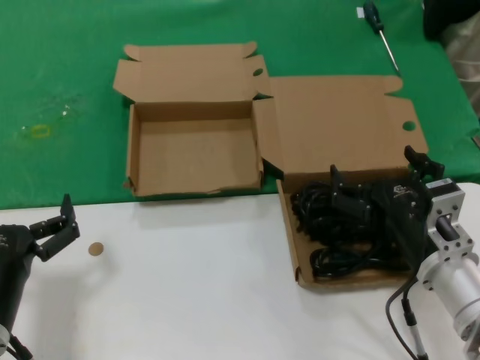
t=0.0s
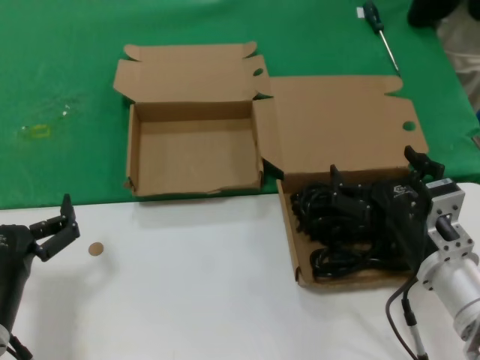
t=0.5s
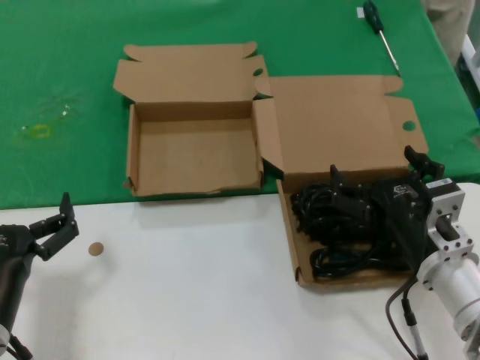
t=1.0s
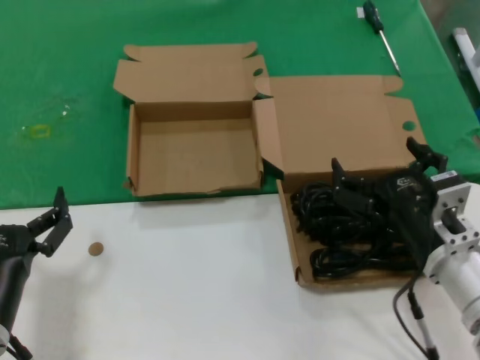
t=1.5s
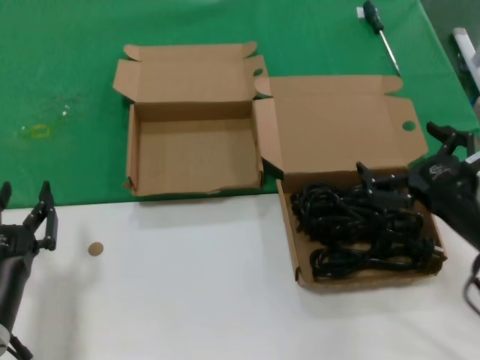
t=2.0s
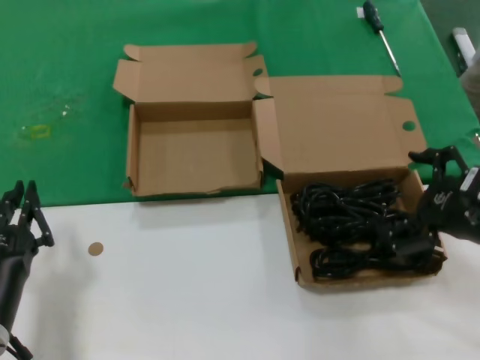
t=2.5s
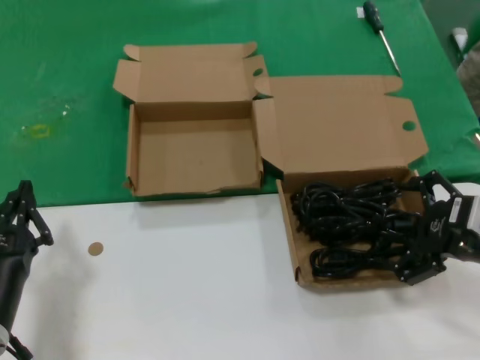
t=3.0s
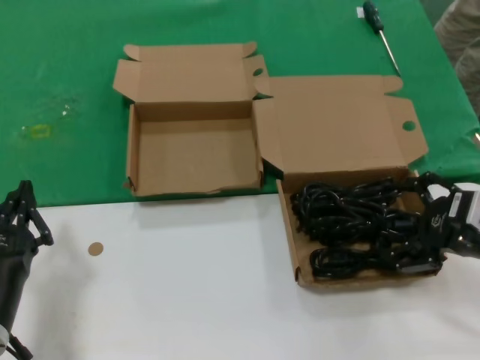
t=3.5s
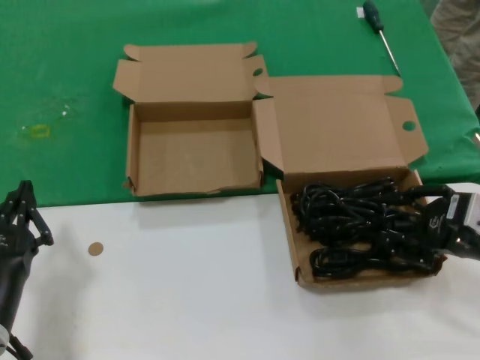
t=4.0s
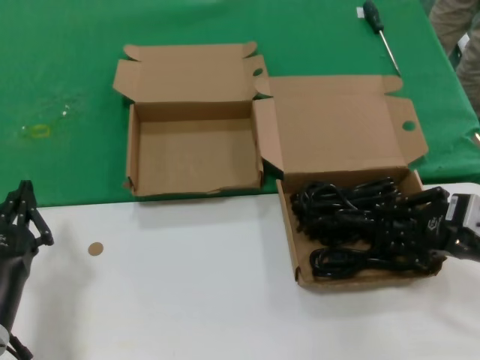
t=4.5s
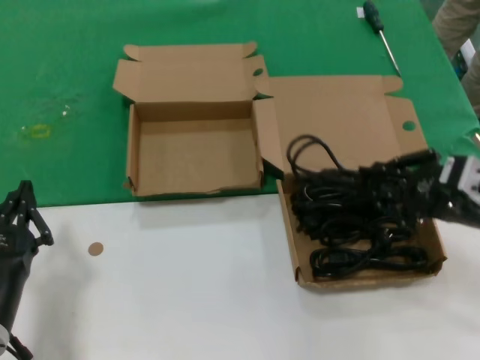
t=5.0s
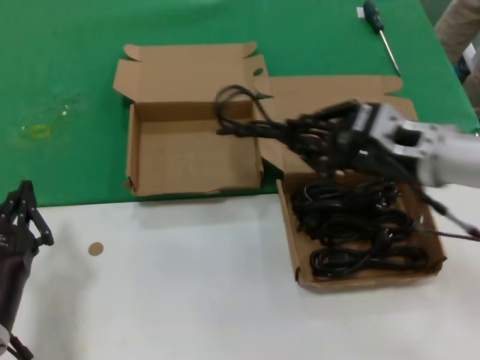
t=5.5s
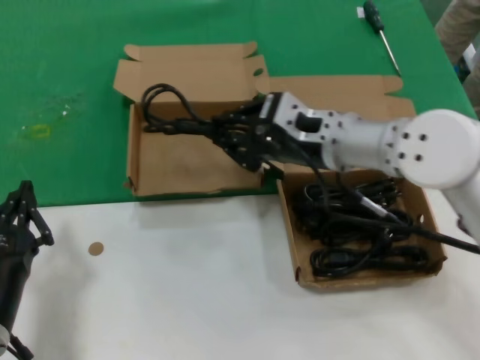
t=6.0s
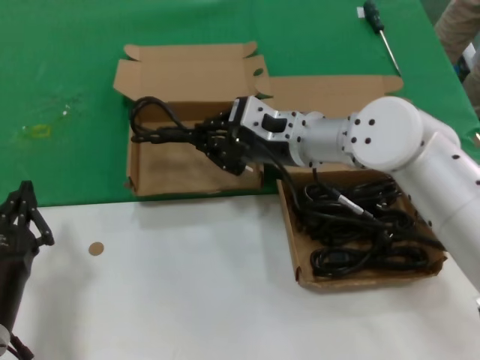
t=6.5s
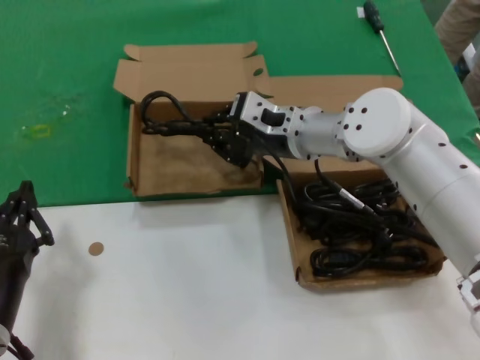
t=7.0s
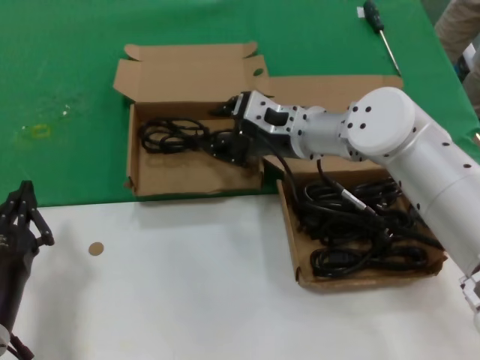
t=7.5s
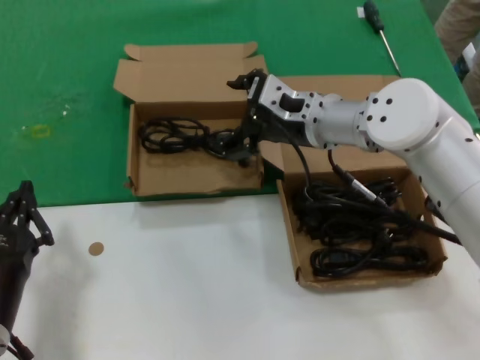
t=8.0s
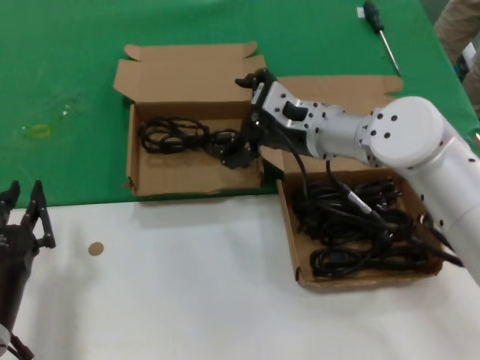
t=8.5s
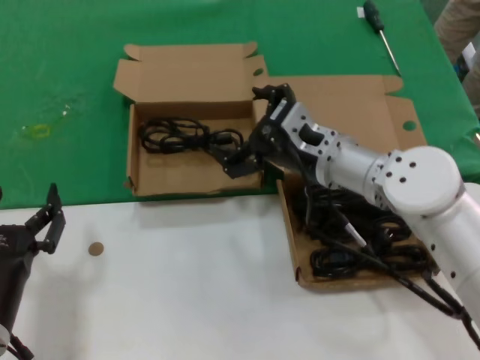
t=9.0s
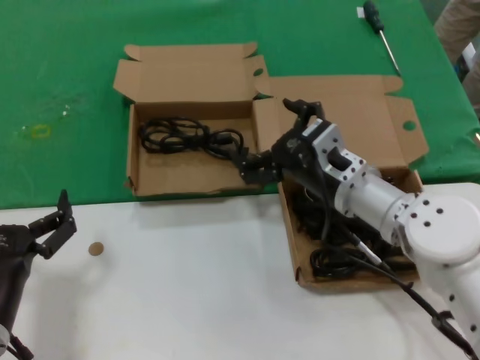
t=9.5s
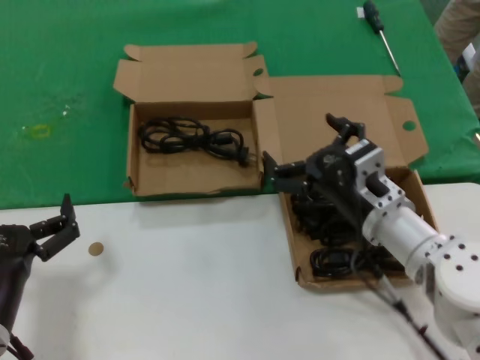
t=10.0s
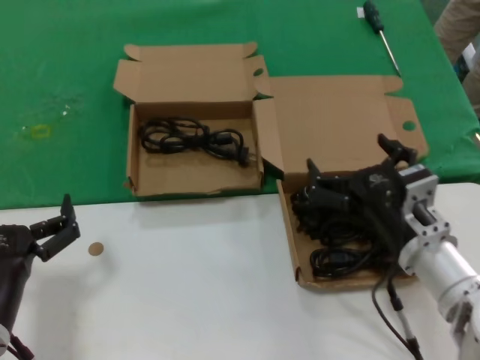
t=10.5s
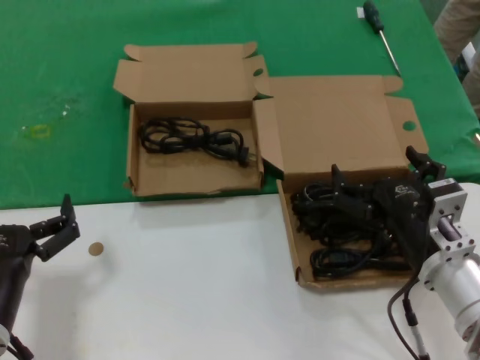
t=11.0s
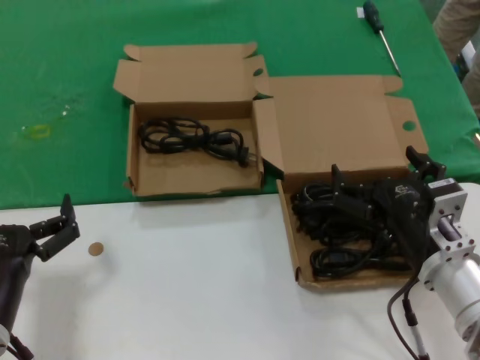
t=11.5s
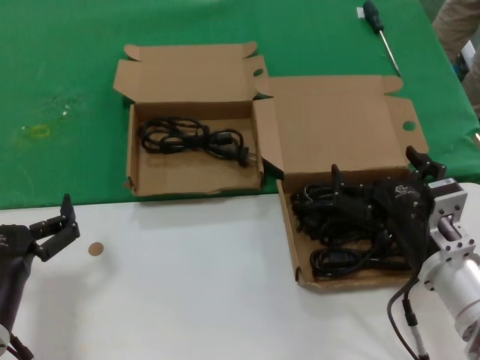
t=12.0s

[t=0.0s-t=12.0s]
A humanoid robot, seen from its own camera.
Task of the whole recording: take the parts from the box containing them and put them into an empty box.
Step, t=0.0s to t=4.0s: Grasp the data cable.
Step, t=4.5s to t=7.5s: Place the data cable in the another box.
t=0.0s to t=2.0s: The right hand travels to the right and upward by roughly 10 cm.
t=2.0s to t=4.0s: The right hand shifts roughly 5 cm to the right.
t=4.0s to t=6.0s: The right hand is displaced to the left and forward by about 25 cm.
t=6.0s to t=8.0s: The right hand heads forward, covering some 5 cm.
t=8.0s to t=10.0s: The right hand goes about 15 cm backward and downward.
t=10.0s to t=12.0s: The right hand is displaced backward by roughly 10 cm.

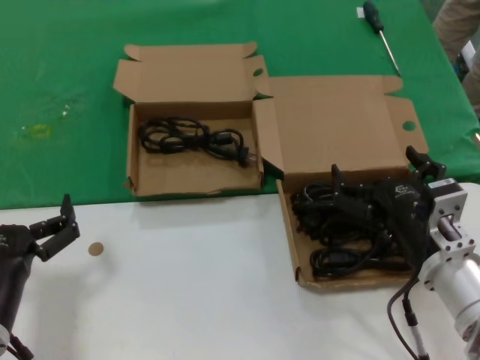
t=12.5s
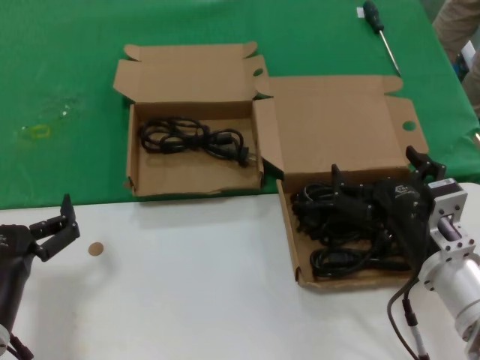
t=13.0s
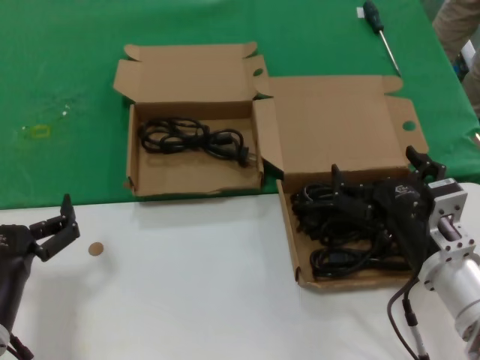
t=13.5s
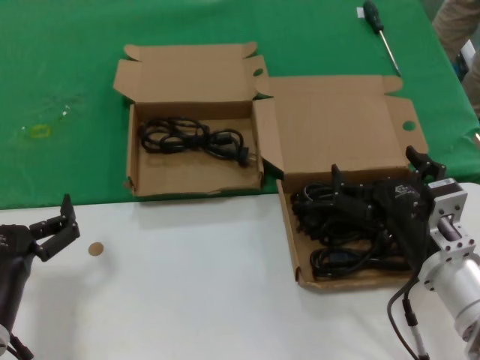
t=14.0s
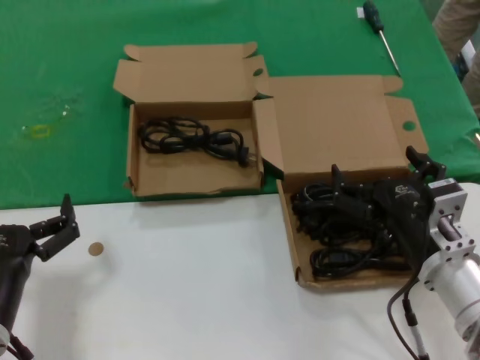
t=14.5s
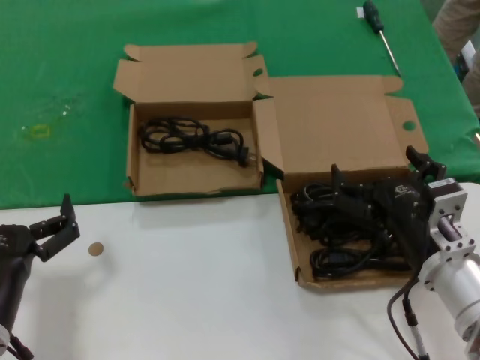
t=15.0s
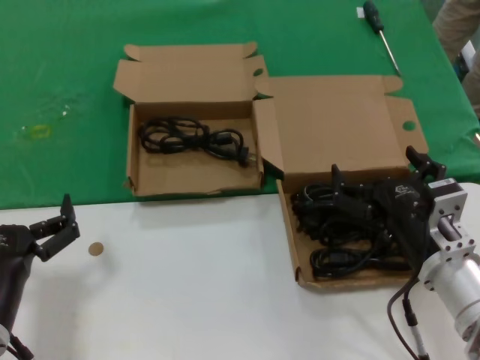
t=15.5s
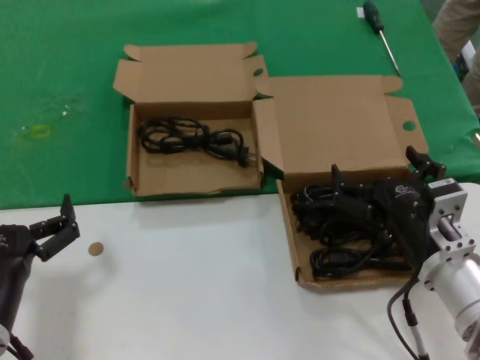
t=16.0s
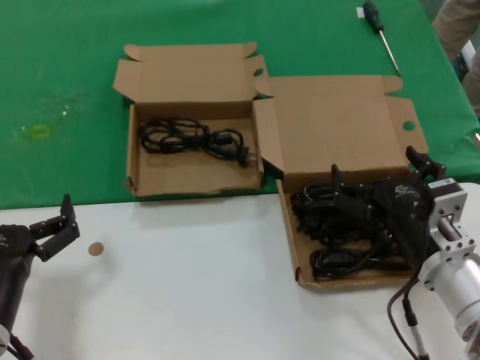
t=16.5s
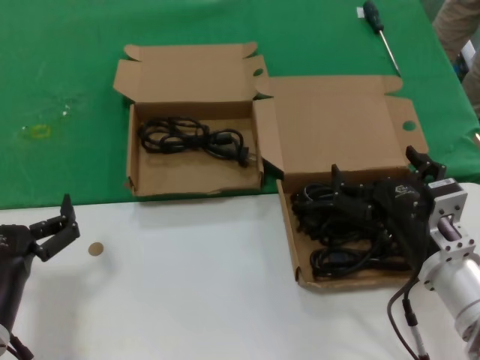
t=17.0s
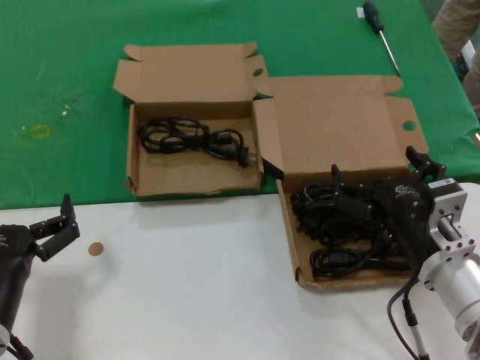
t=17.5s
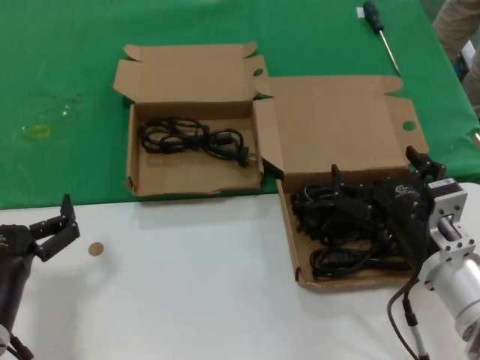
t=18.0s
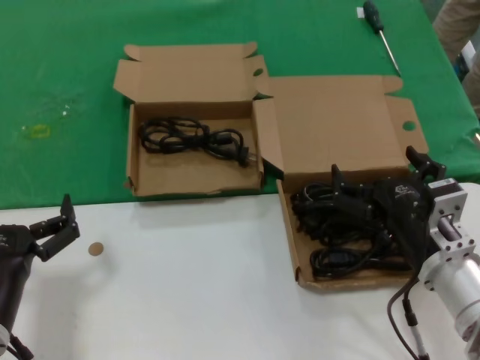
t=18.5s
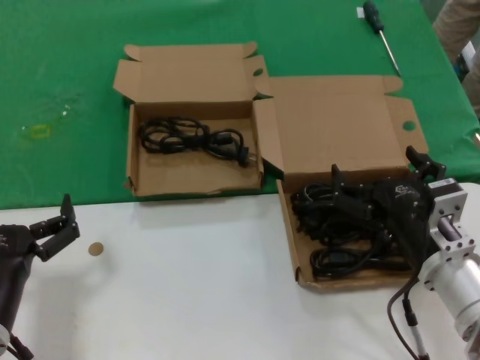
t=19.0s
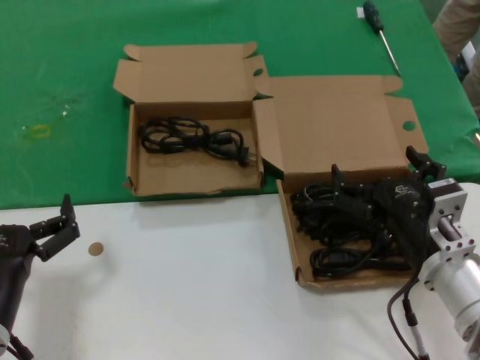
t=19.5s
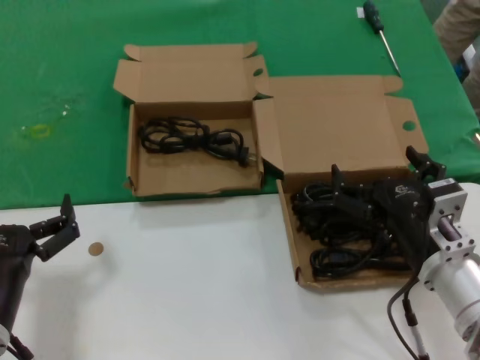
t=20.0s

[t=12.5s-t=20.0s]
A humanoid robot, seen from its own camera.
Task of the whole recording: take the parts from the box containing them and put them into an empty box.
t=12.5s to t=20.0s: The two hands keep their place.

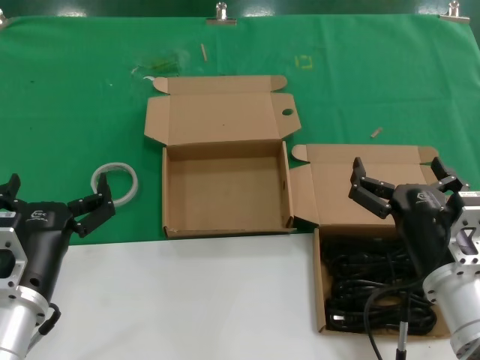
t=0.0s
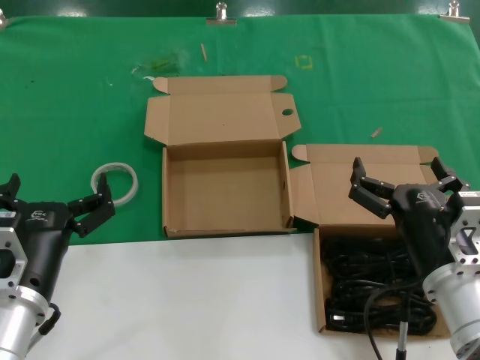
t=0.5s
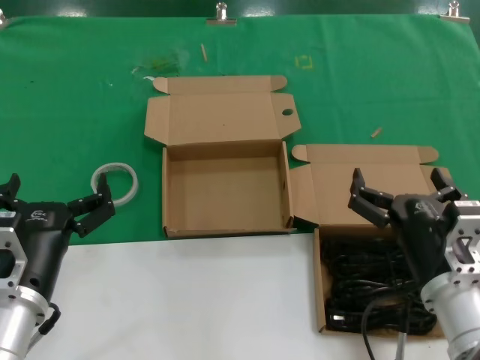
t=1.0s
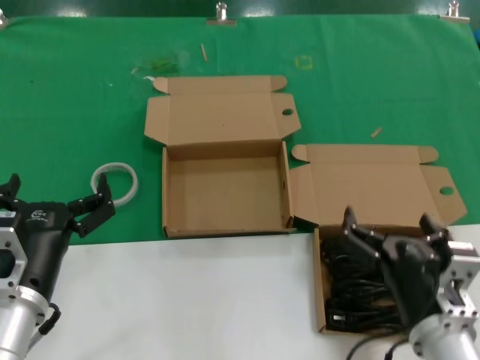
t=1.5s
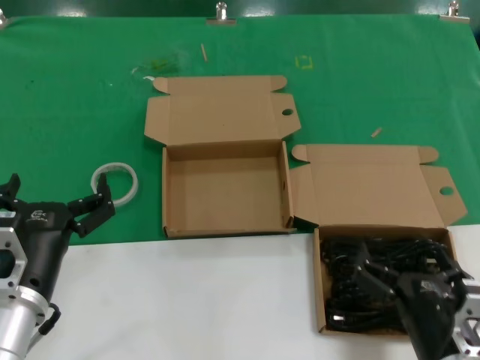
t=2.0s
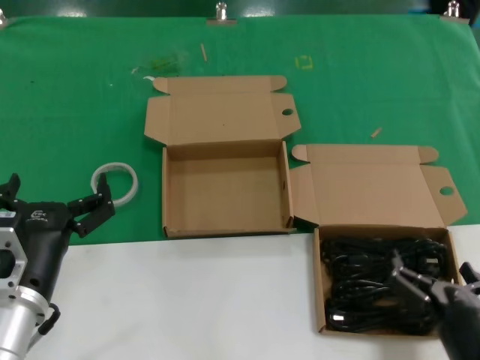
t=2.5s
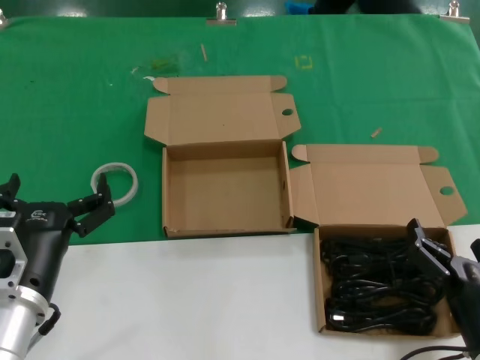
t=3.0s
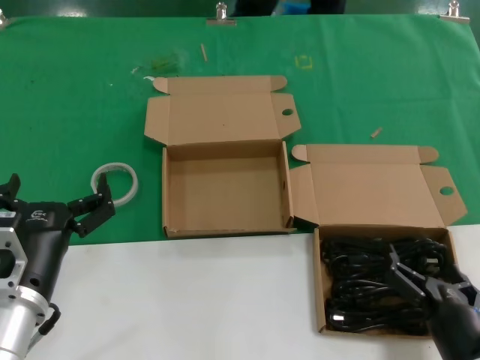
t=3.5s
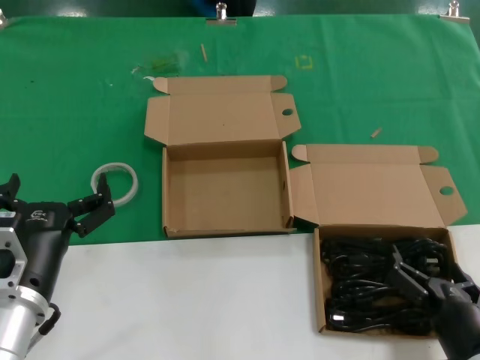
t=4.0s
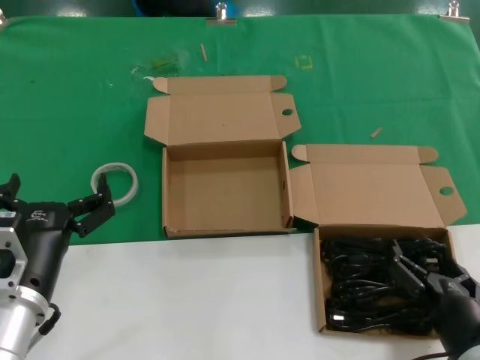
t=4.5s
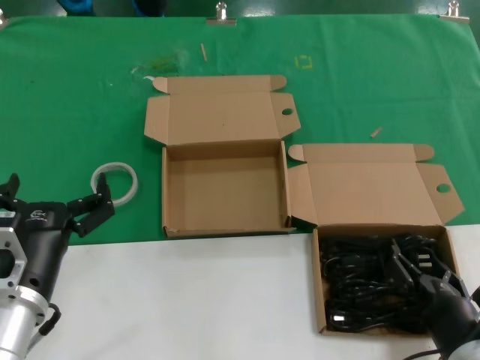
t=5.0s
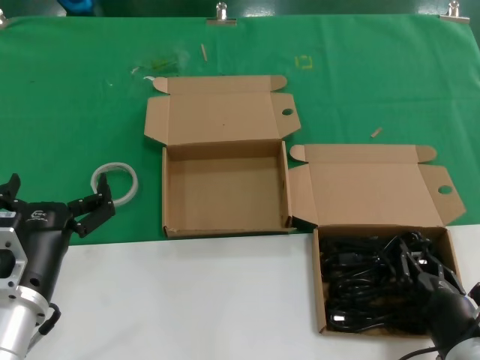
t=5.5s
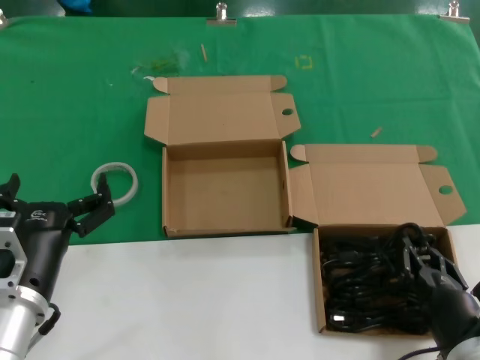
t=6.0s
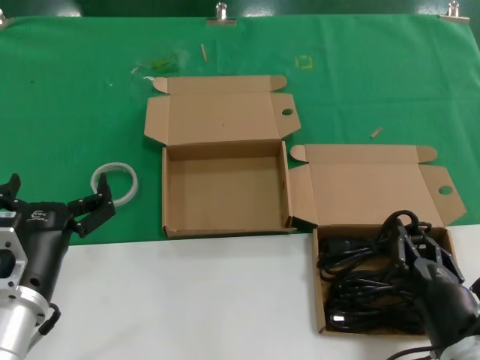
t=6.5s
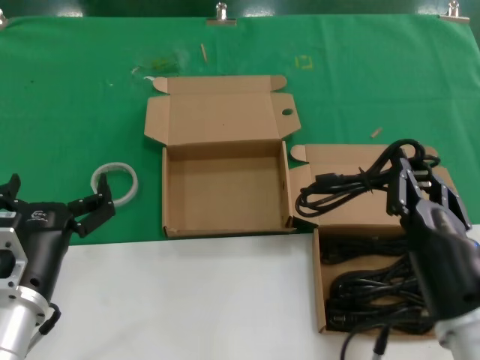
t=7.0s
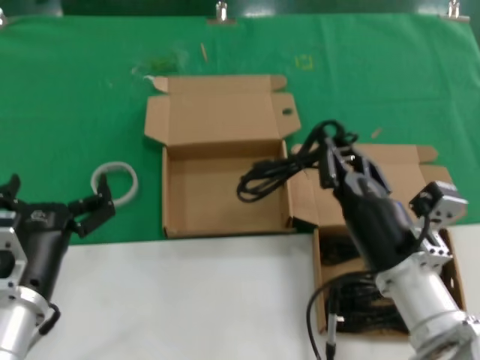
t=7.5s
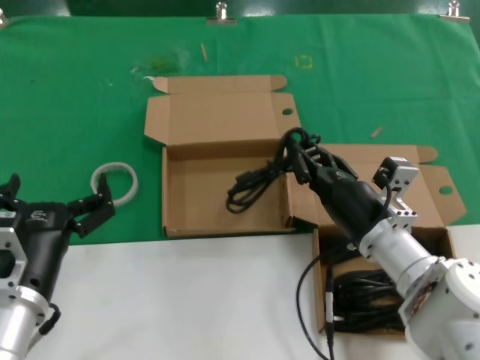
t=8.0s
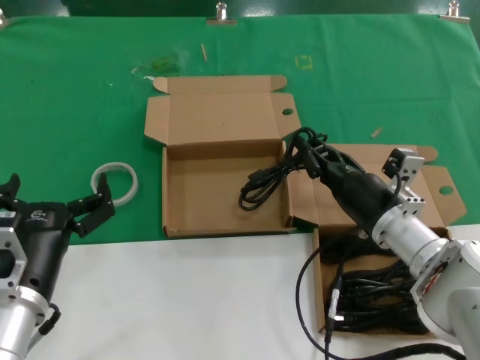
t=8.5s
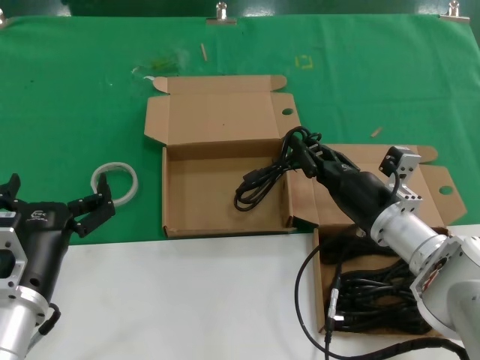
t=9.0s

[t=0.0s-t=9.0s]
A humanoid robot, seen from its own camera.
Task of the whole recording: take the parts from the box containing them and put them into an empty box.
Step, t=0.0s to t=5.5s: Grasp the data cable.
t=0.0s to t=2.0s: The right hand travels backward by some 10 cm.
t=2.0s to t=4.5s: The right hand heads to the right and downward, covering approximately 10 cm.
t=4.5s to t=7.0s: The right hand travels upward and to the left by approximately 15 cm.
t=7.0s to t=9.0s: The right hand shifts approximately 25 cm forward.
